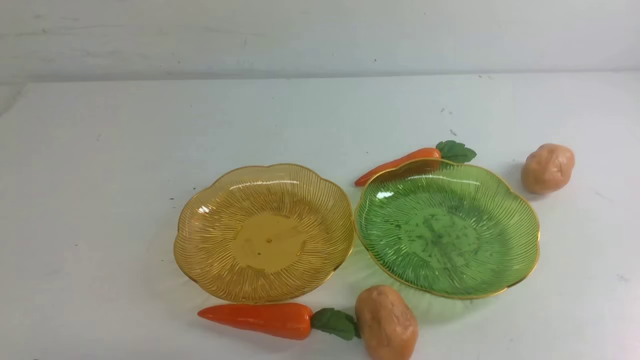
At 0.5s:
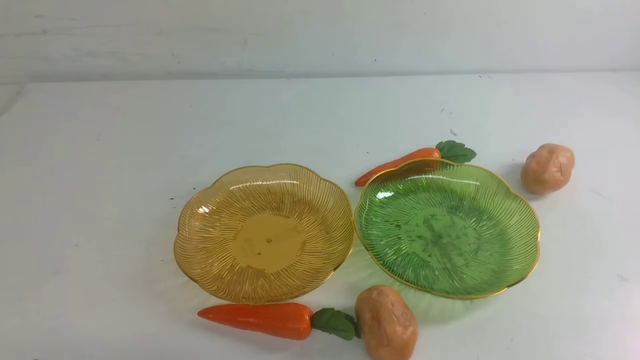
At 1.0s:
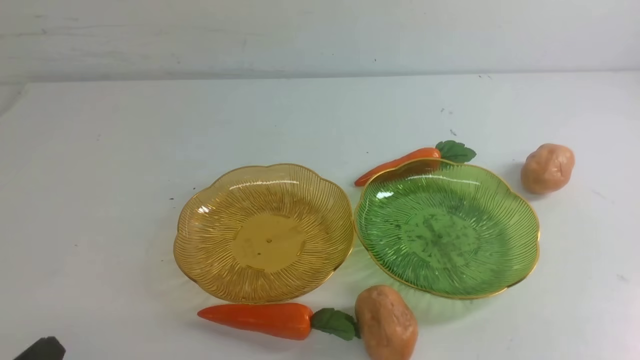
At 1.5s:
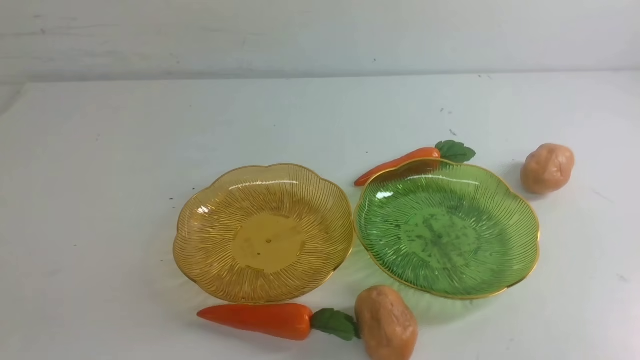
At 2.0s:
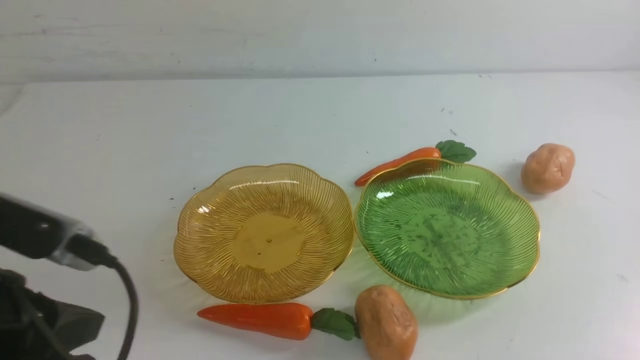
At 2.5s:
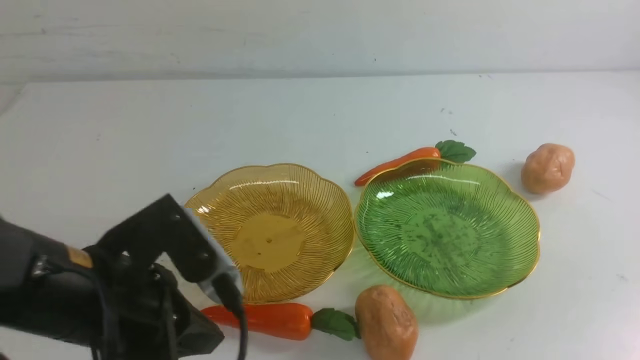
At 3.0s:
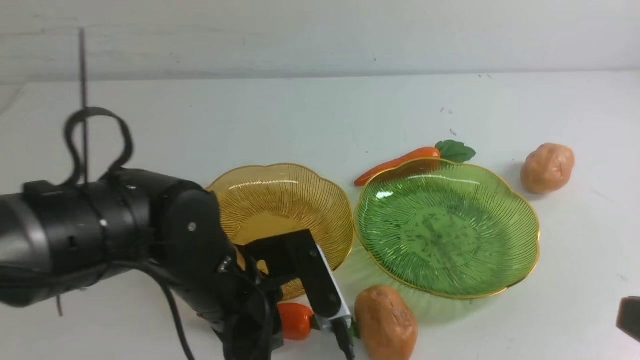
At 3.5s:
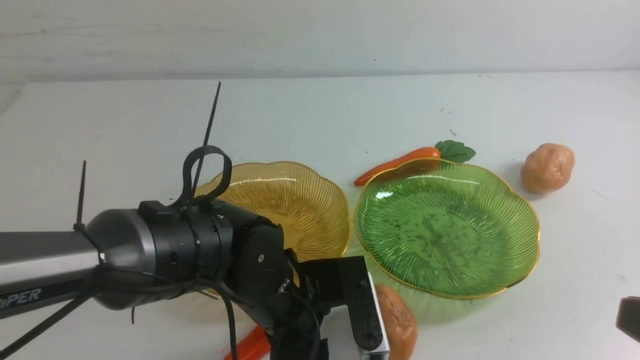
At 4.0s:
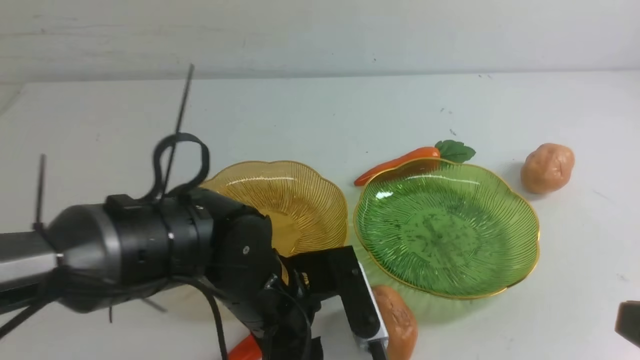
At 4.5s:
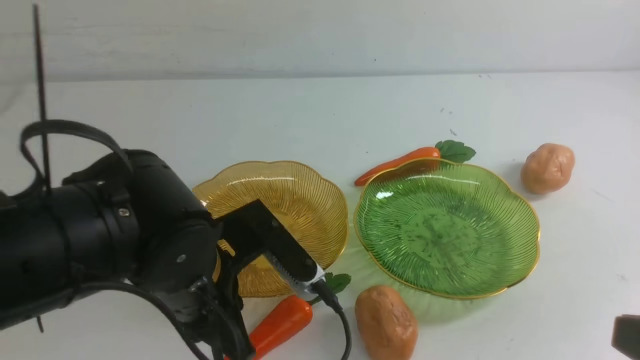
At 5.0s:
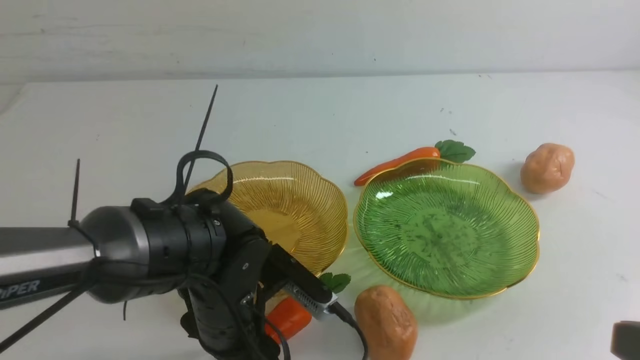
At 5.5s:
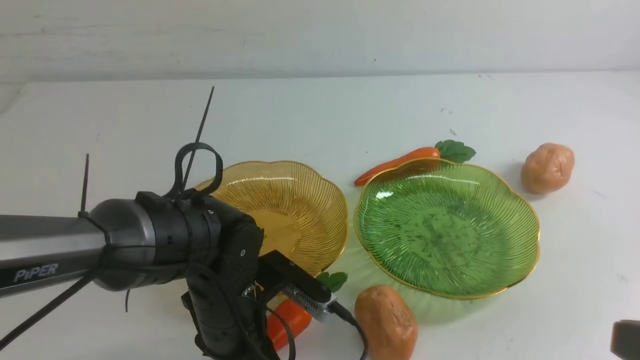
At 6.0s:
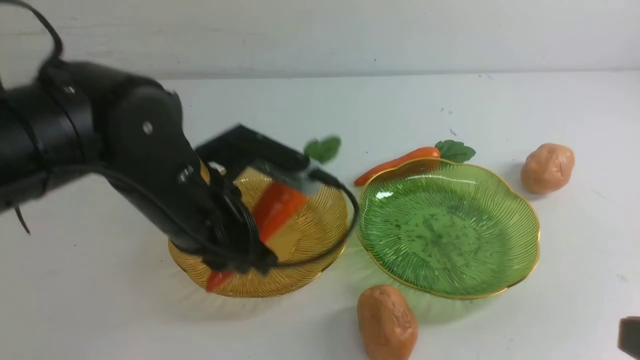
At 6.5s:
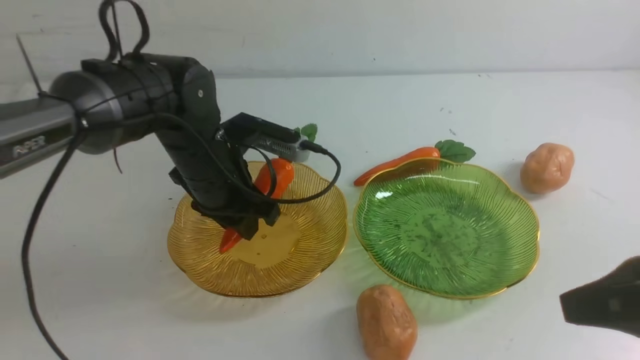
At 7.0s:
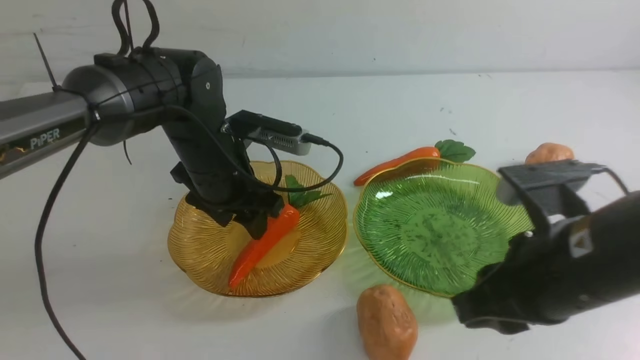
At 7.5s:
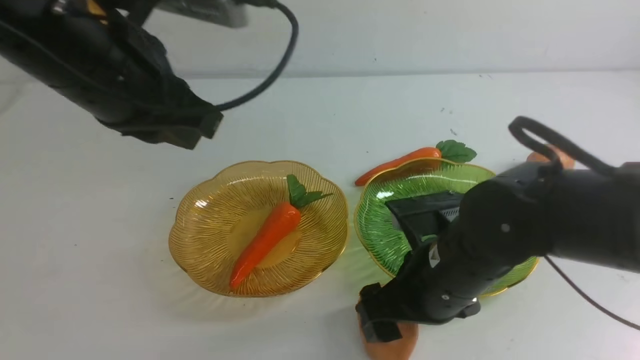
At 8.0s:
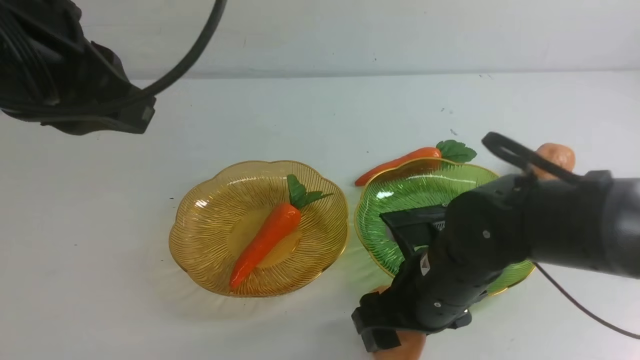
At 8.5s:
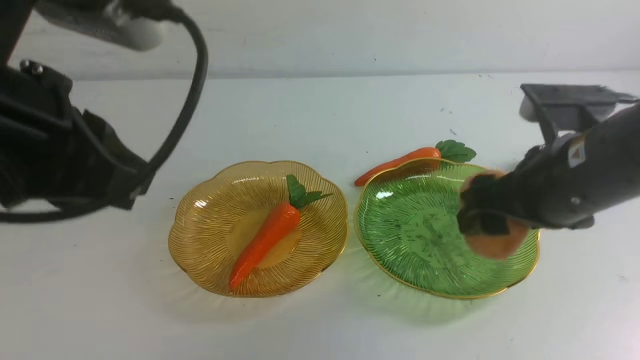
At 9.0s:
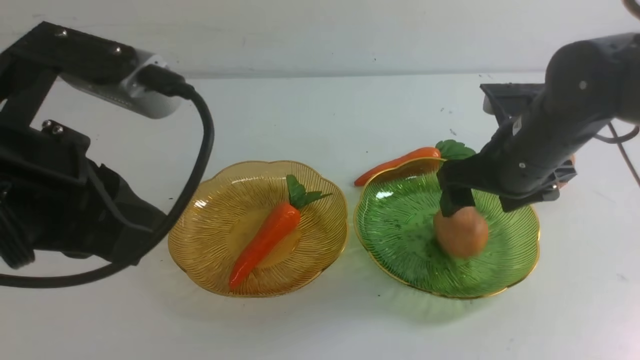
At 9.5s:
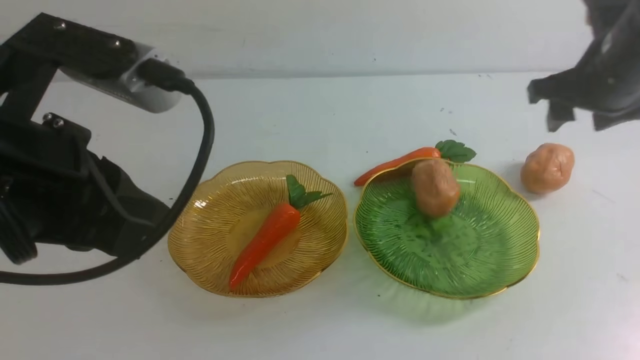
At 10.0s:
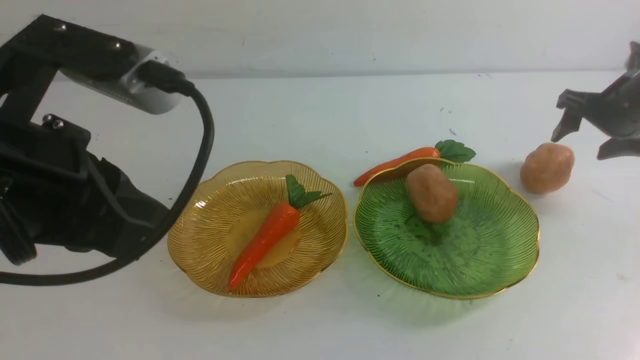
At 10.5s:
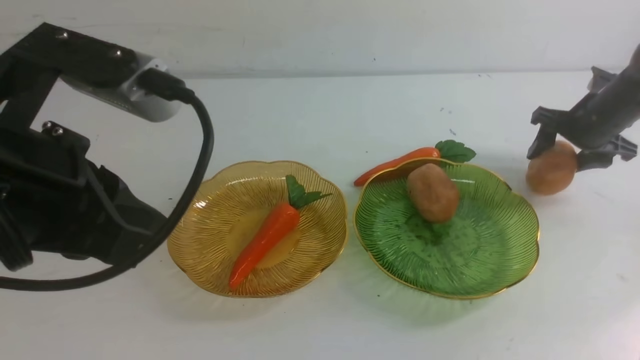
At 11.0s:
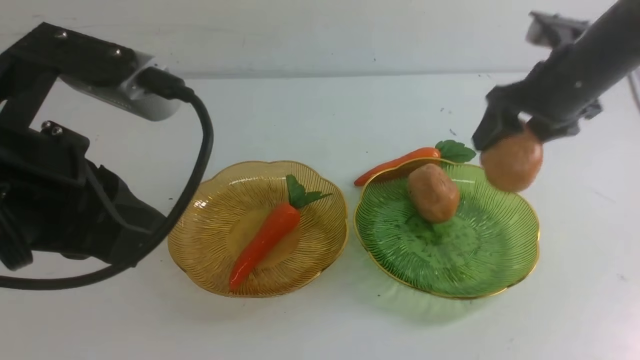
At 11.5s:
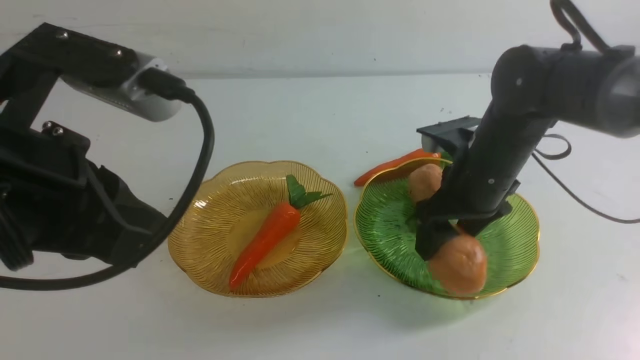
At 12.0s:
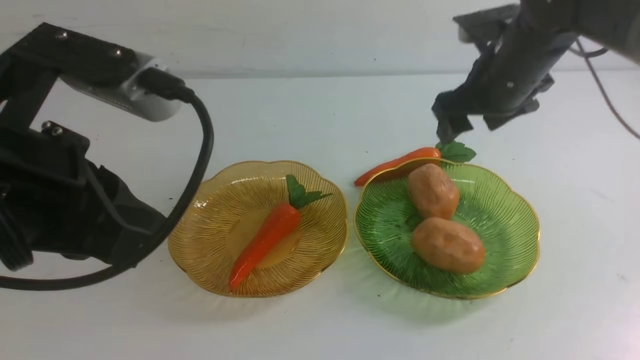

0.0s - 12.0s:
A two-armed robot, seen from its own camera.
Step, 0.0s - 6.5s: use the left arm to grab a carrot and put it into the left plate.
Step, 7.0s - 9.0s: Grab a potato with your right arm and put it on the right plate.
Step, 9.5s - 11.5s: Grab a potato with your right arm and put it on the right plate.
0.0s - 2.0s: The left gripper heads upward and forward, covering about 15 cm.
2.0s - 4.0s: The left gripper travels to the right, downward and forward by about 20 cm, and opens up, while the right gripper shifts approximately 10 cm upward.
4.0s - 6.0s: The left gripper goes some 15 cm forward, to the left and upward, and closes up.
6.0s - 8.0s: The right gripper goes some 20 cm forward and to the left, and opens its fingers. The left gripper heads upward and backward, covering about 20 cm, and closes.
8.0s - 10.0s: The right gripper shifts some 30 cm forward, to the right and downward.
10.0s - 12.0s: The right gripper travels to the left by about 15 cm.

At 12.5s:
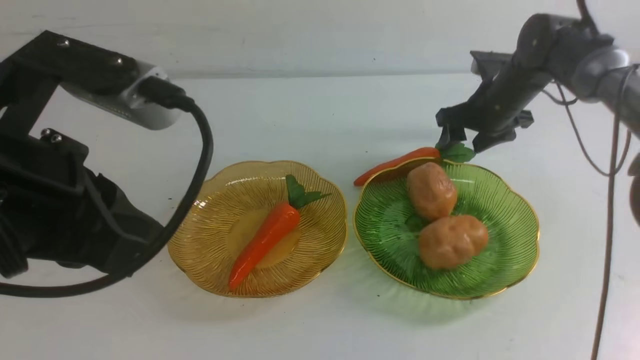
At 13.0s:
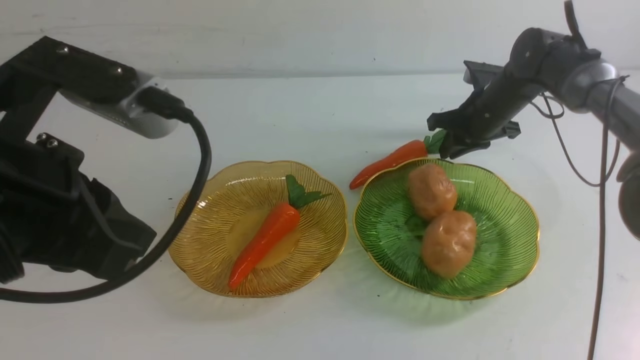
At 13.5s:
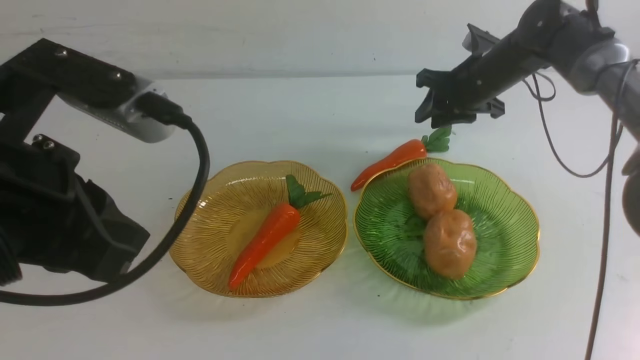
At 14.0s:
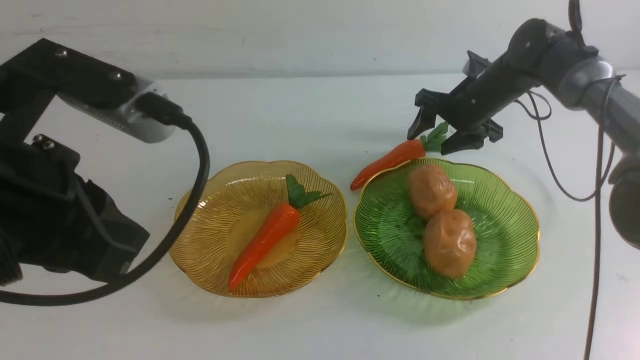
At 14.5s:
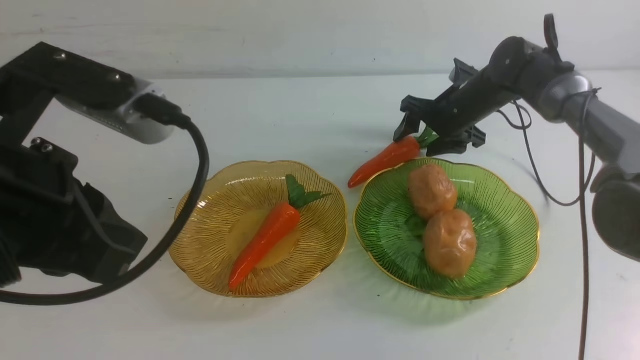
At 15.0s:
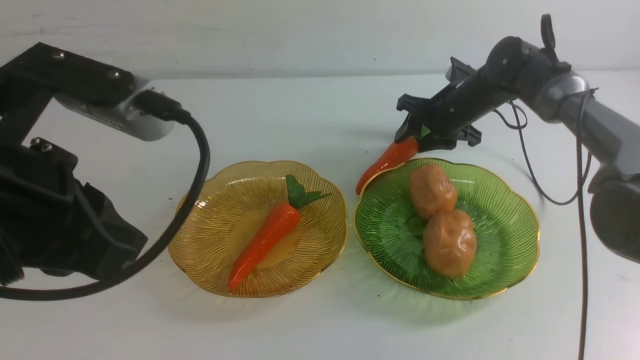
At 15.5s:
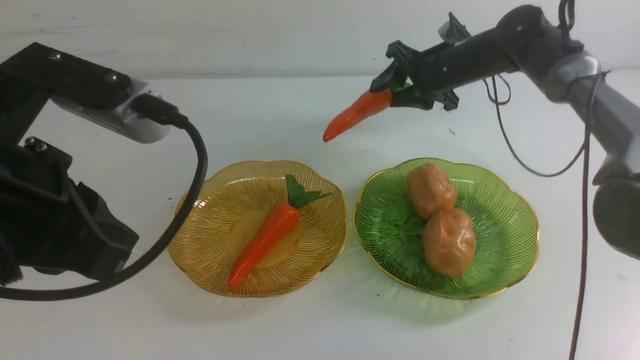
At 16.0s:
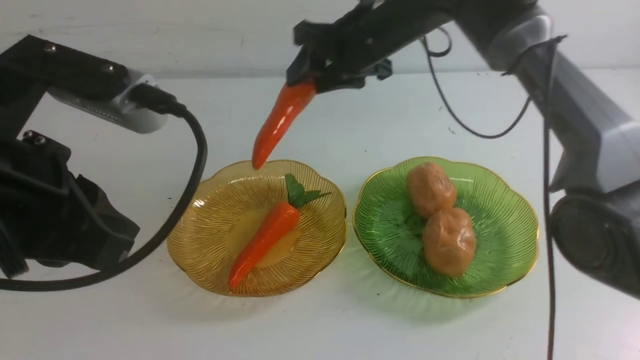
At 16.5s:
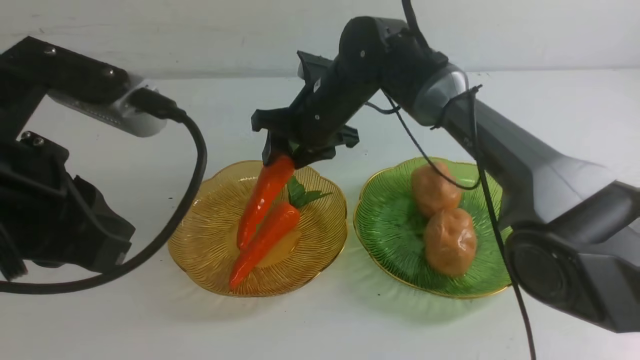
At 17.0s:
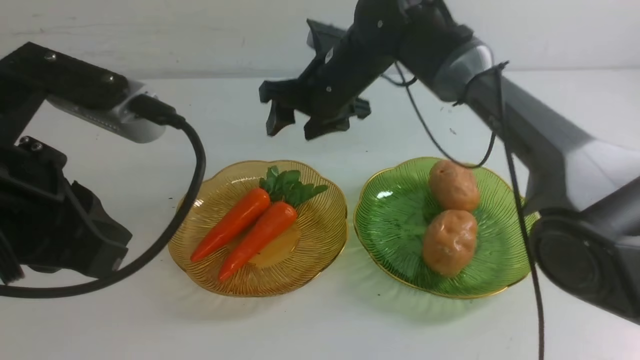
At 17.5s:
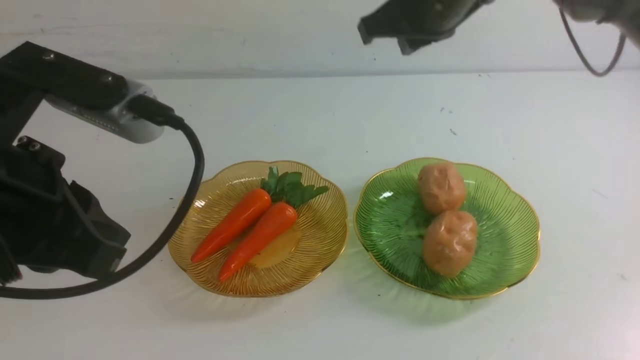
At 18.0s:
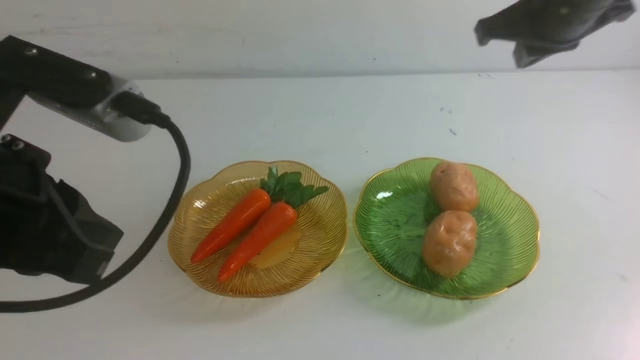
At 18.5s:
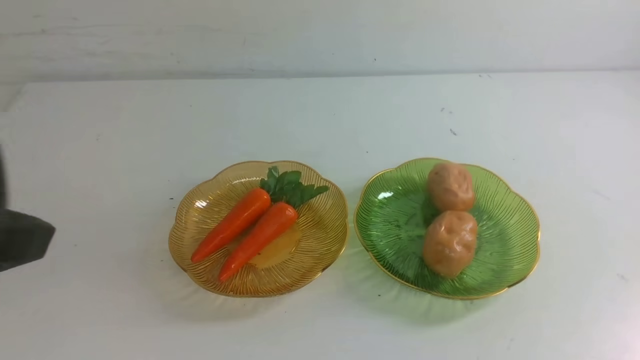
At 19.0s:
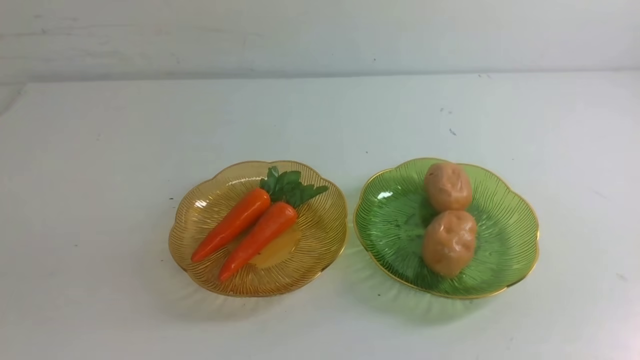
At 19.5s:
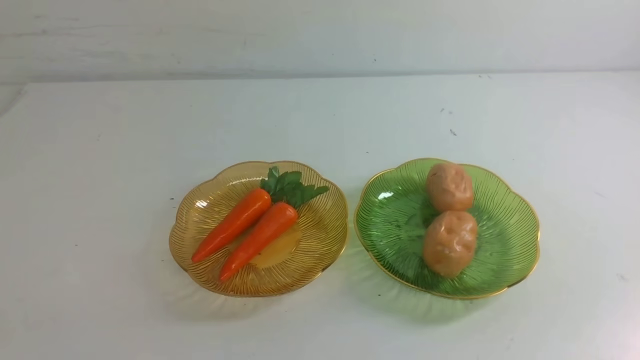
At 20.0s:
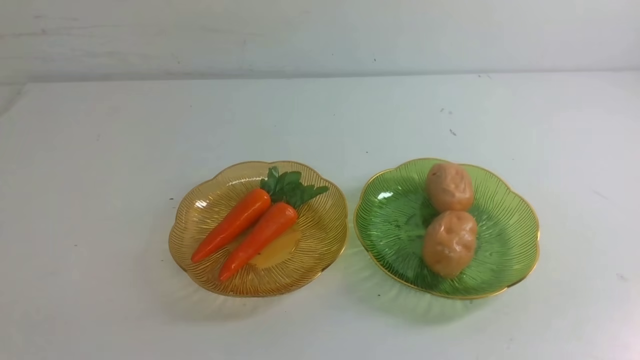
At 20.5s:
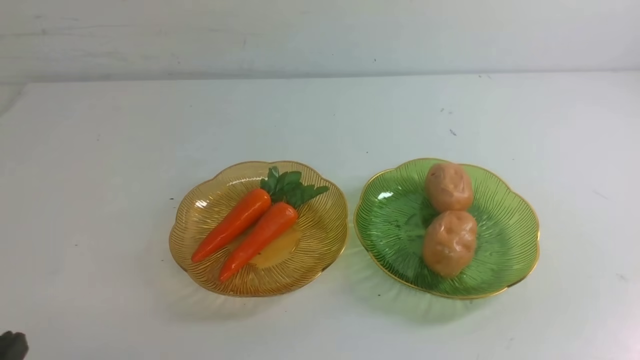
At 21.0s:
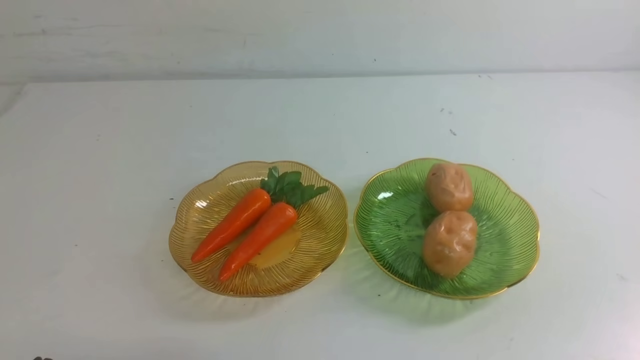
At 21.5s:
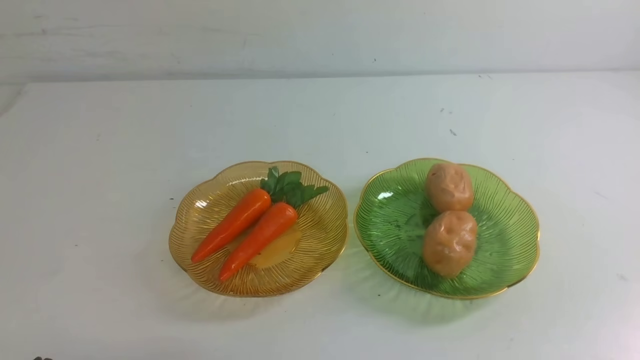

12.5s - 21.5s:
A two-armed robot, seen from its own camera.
Step, 12.5s - 16.5s: use the right arm to grab a carrot and put it into the left plate.
12.5s - 14.5s: The right gripper opens.
14.5s - 17.0s: The right gripper goes up and down, approximately 20 cm each way, reversing 2 times, and closes its fingers.
17.0s - 19.5s: The left gripper travels backward and to the left by approximately 20 cm, while the right gripper travels backward and to the right by roughly 50 cm.
